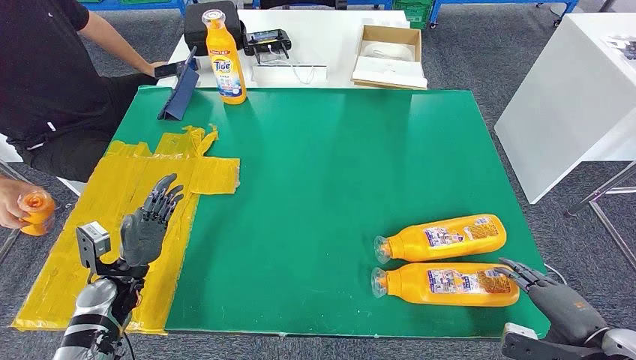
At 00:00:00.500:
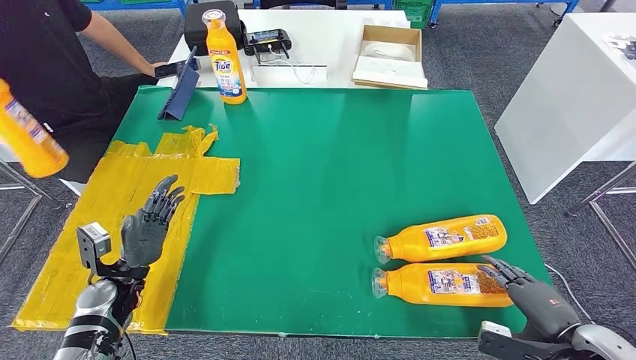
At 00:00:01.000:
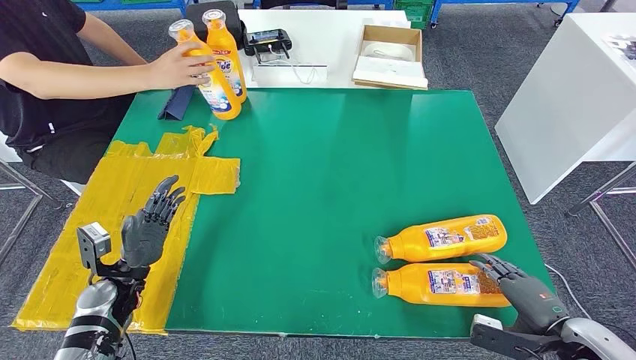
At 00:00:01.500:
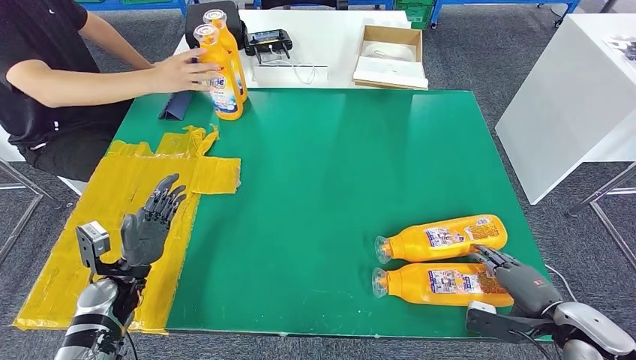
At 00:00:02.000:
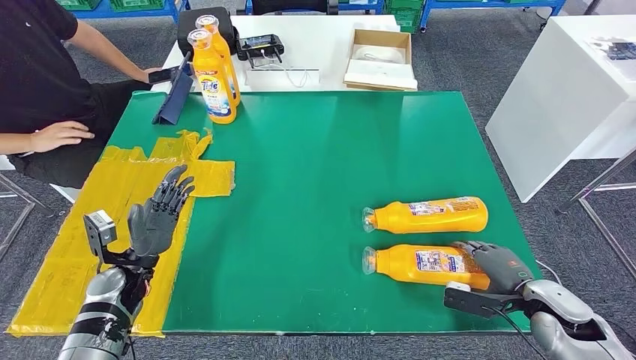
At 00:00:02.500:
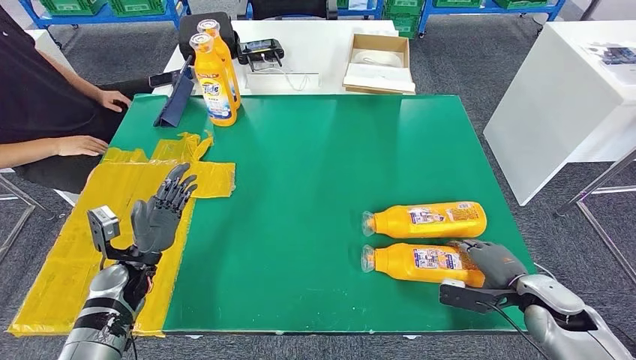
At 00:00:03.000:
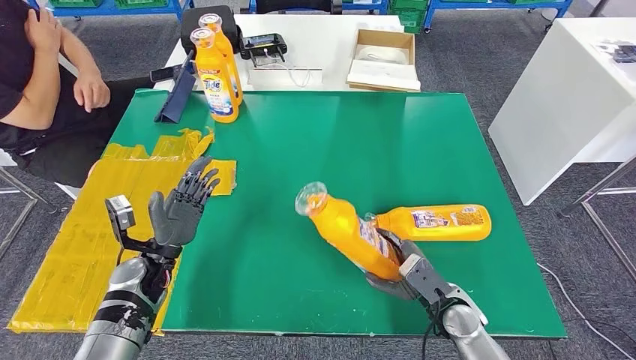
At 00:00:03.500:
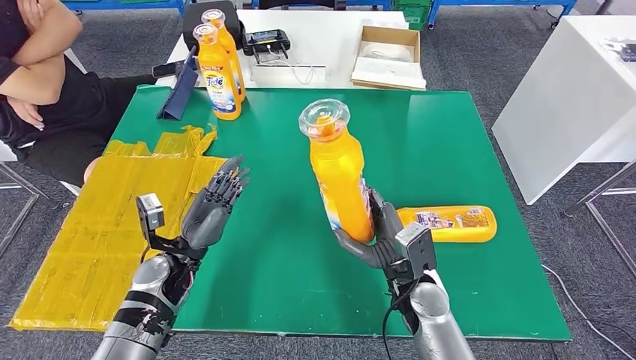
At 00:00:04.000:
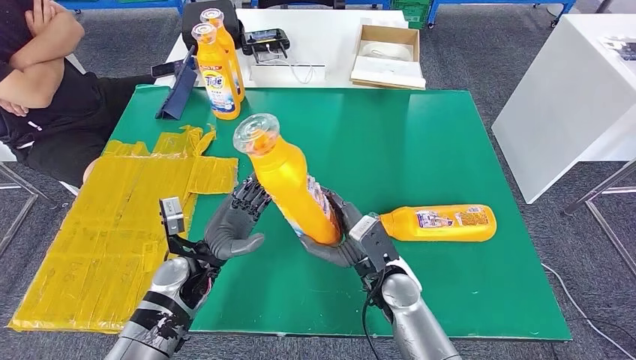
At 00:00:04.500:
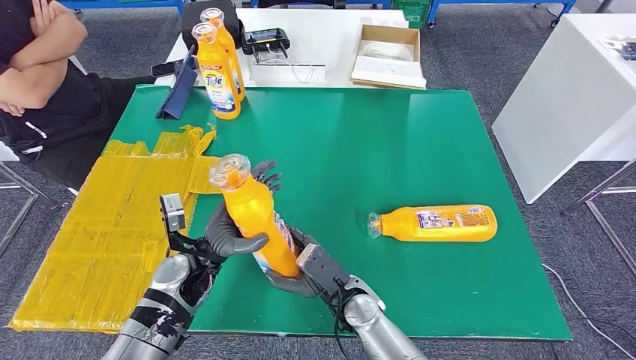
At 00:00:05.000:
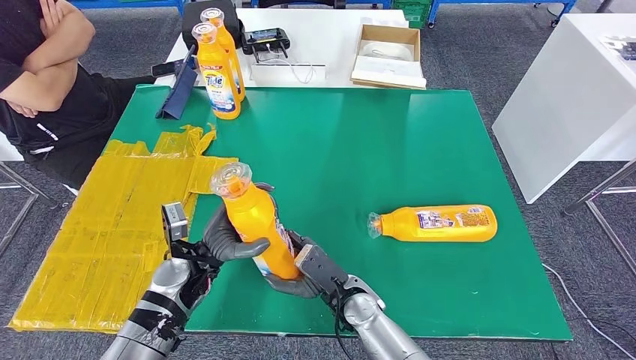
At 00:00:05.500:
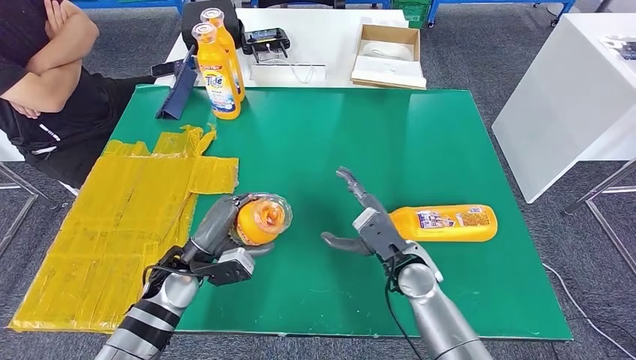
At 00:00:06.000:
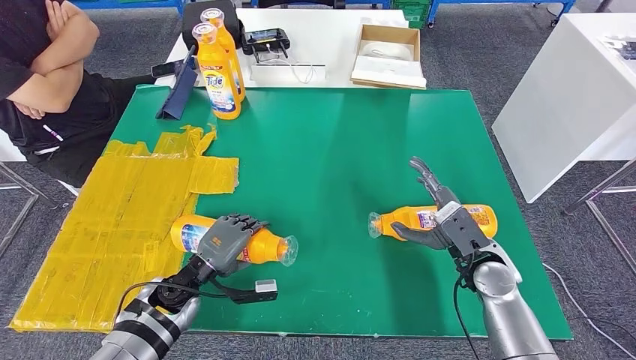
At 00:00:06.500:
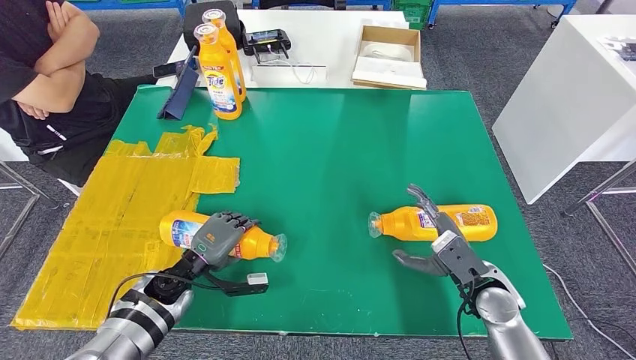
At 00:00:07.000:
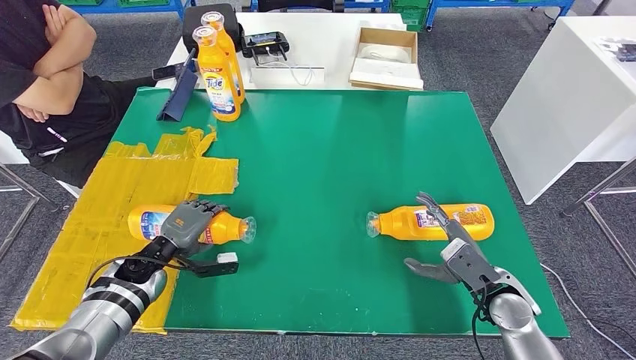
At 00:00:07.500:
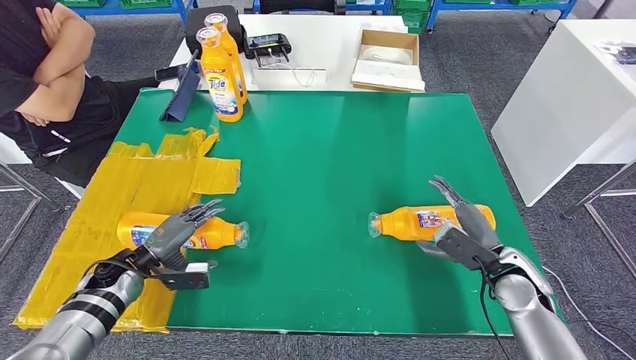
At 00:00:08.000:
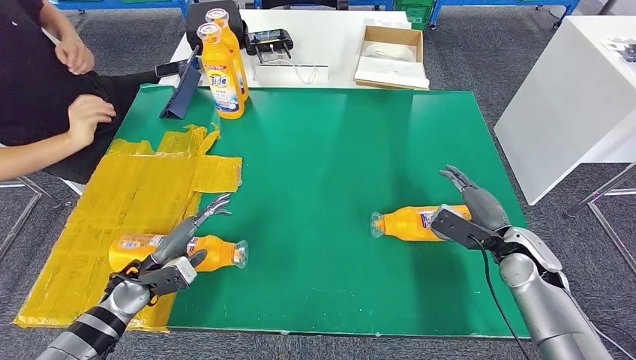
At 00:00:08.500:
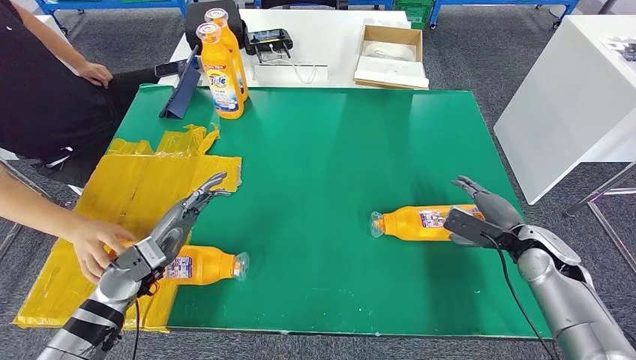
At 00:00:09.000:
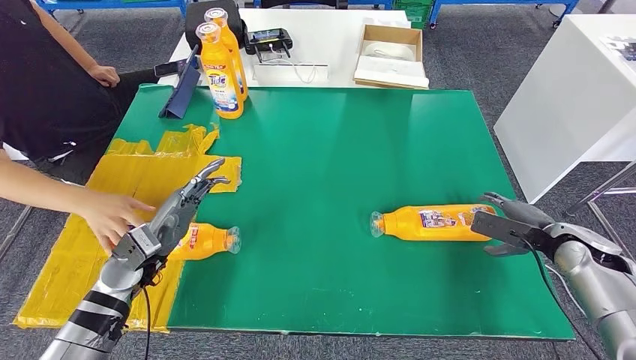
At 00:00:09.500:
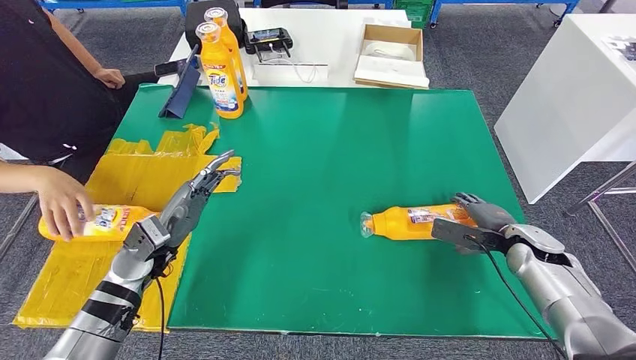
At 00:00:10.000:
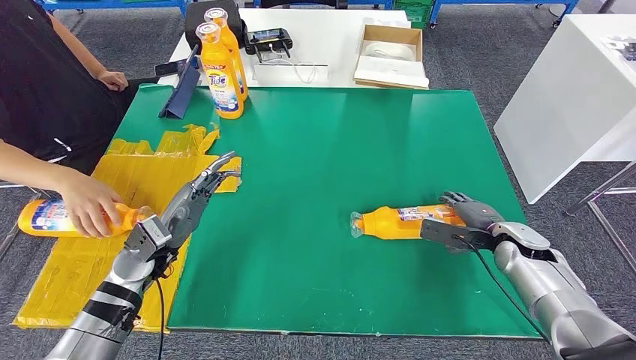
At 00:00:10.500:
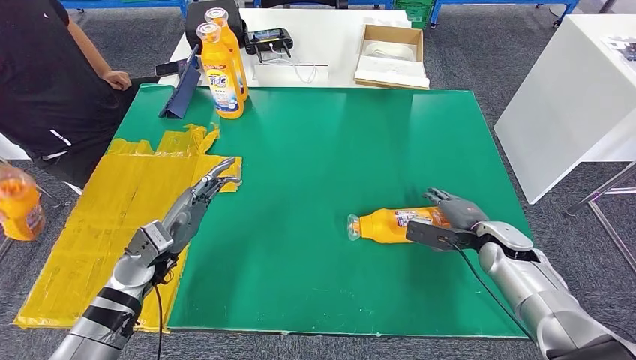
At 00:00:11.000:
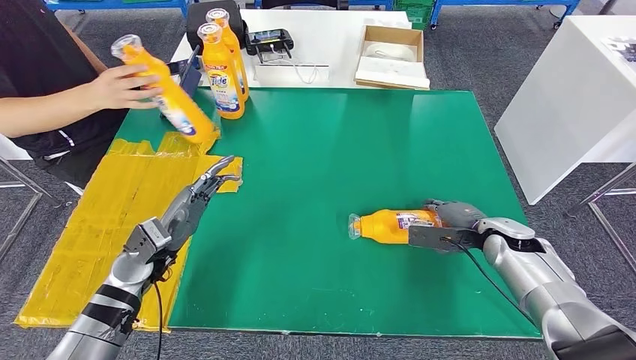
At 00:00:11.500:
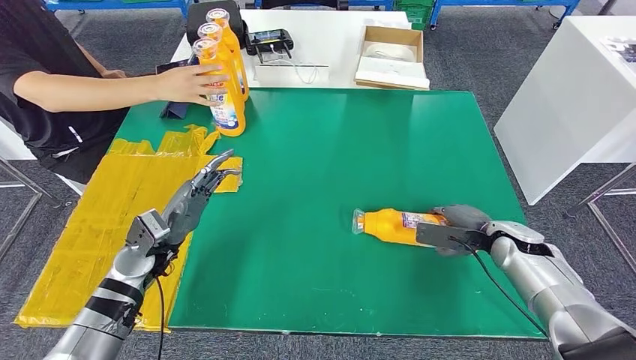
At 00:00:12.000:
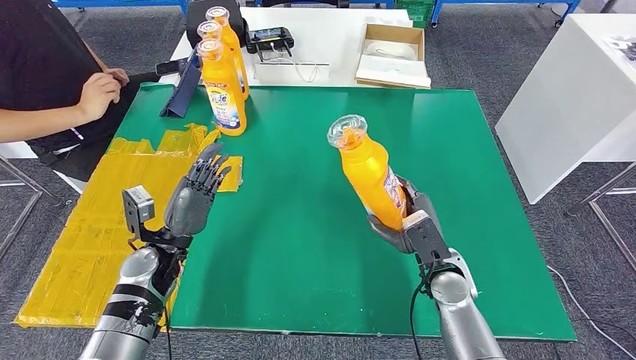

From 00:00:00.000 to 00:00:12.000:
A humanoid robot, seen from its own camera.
Step, from 00:00:00.000 to 00:00:03.000: Pick up the bottle from the table.
Step, from 00:00:04.000 to 00:00:08.500: Flip the bottle to face forward.
From 00:00:08.000 to 00:00:10.000: The right hand goes to the right and returns, roughly 10 cm each way; the left hand shifts approximately 5 cm upward.

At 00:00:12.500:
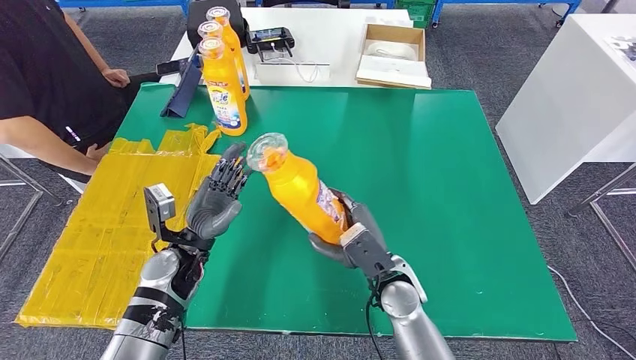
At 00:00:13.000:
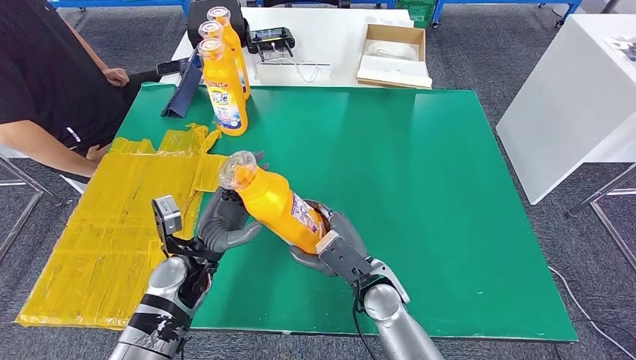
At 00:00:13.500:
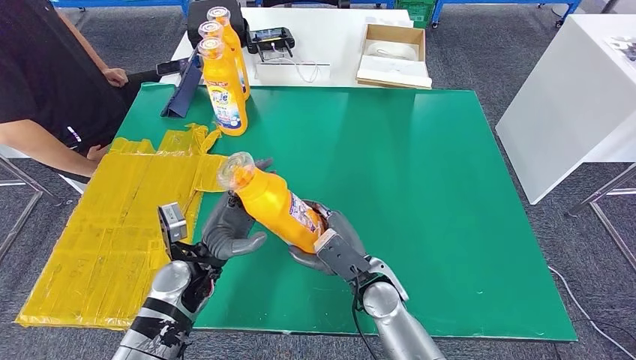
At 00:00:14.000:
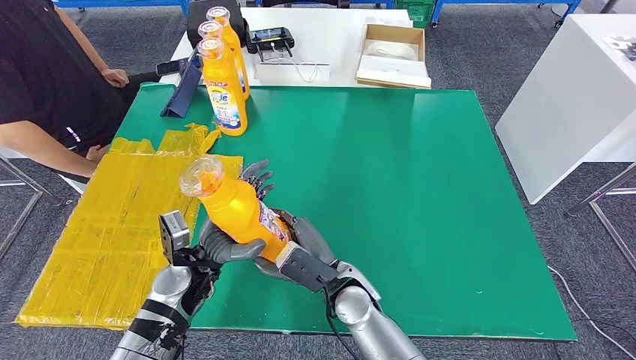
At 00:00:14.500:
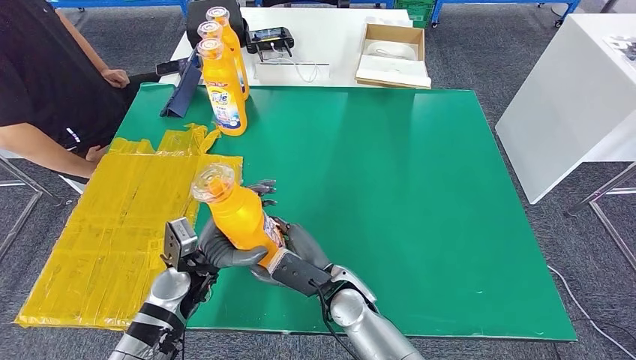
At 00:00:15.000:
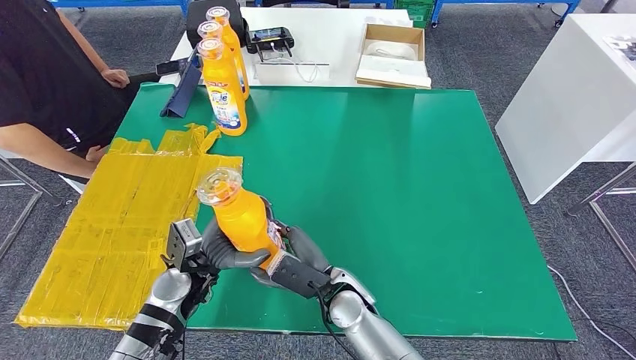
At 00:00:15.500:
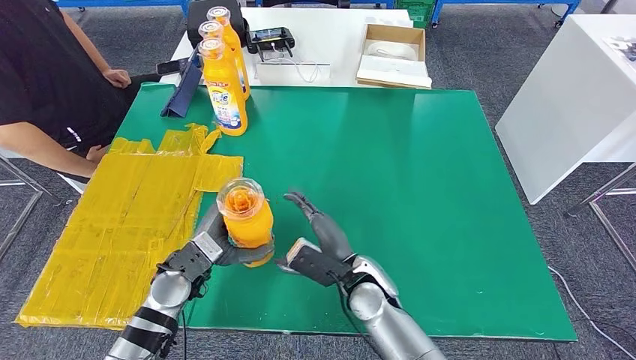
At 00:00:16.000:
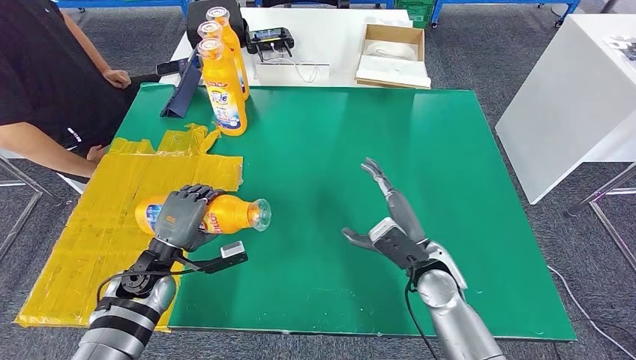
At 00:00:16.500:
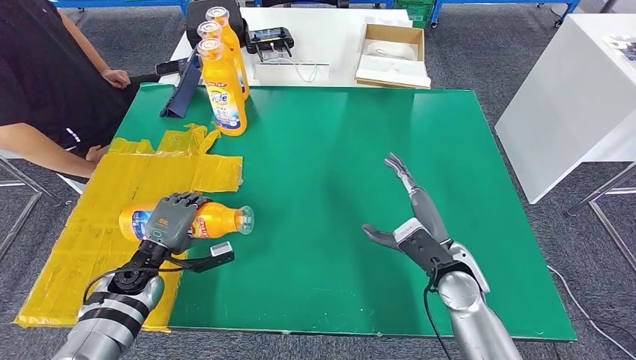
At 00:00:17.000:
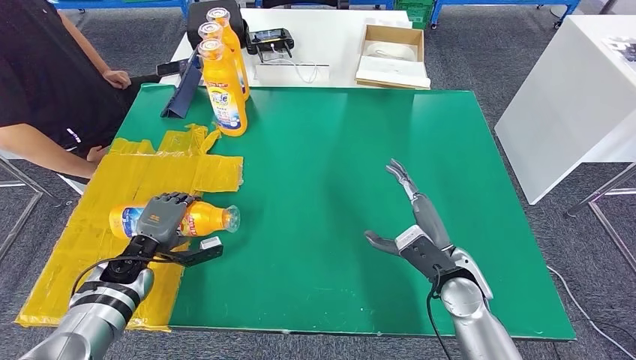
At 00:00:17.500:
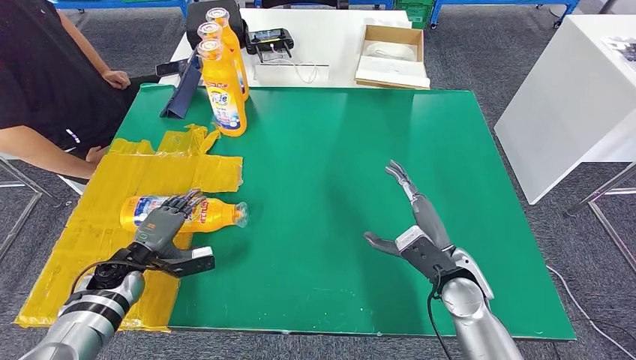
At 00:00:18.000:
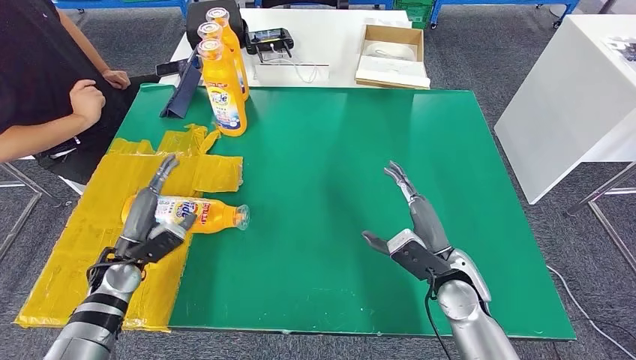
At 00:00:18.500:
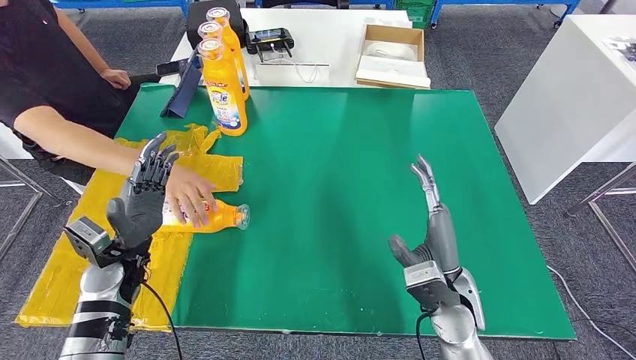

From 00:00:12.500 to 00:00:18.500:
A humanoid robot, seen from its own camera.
Step, from 00:00:13.000 to 00:00:18.000: Flip the bottle to face forward.
From 00:00:12.500 to 00:00:14.500: The right hand moves to the left, about 10 cm.
From 00:00:14.500 to 00:00:16.500: The right hand travels to the right by some 20 cm; the left hand heads to the left, covering approximately 10 cm.
From 00:00:16.500 to 00:00:18.500: The left hand is displaced upward by roughly 5 cm.
